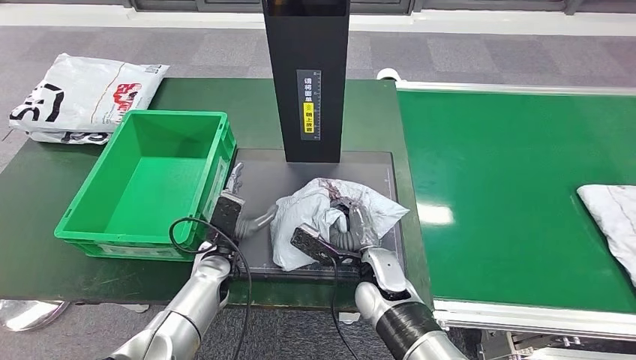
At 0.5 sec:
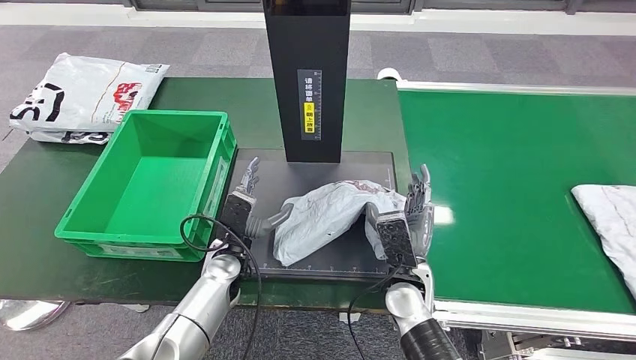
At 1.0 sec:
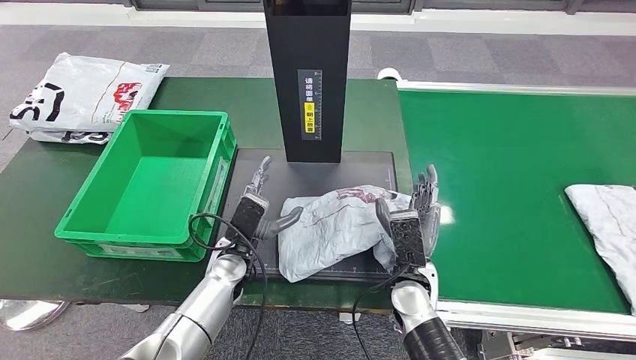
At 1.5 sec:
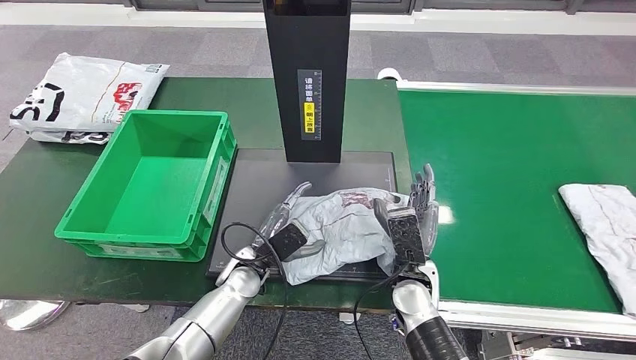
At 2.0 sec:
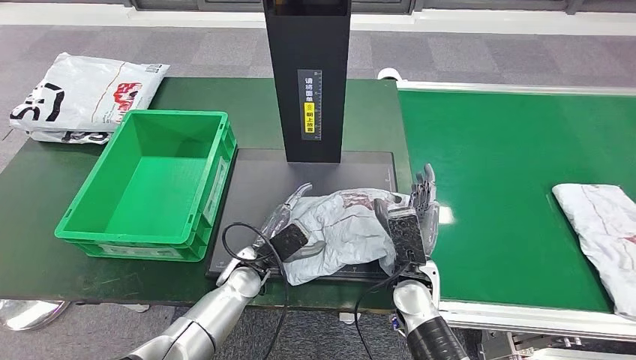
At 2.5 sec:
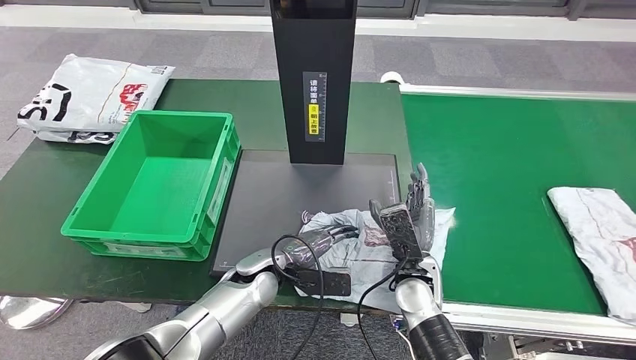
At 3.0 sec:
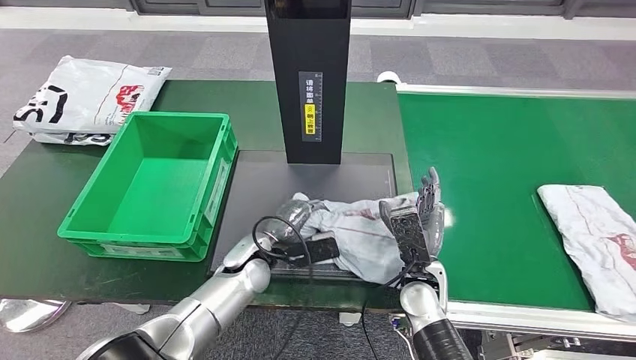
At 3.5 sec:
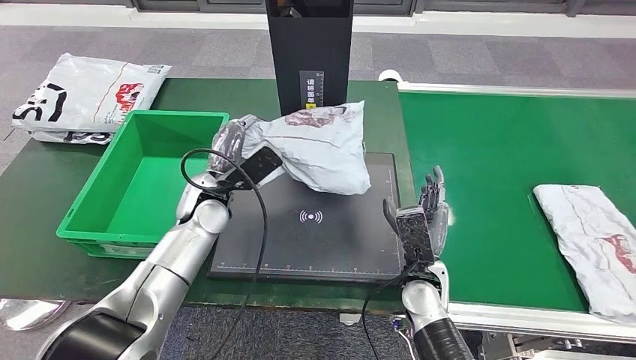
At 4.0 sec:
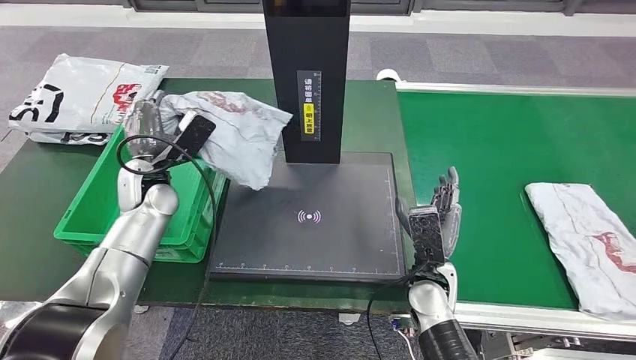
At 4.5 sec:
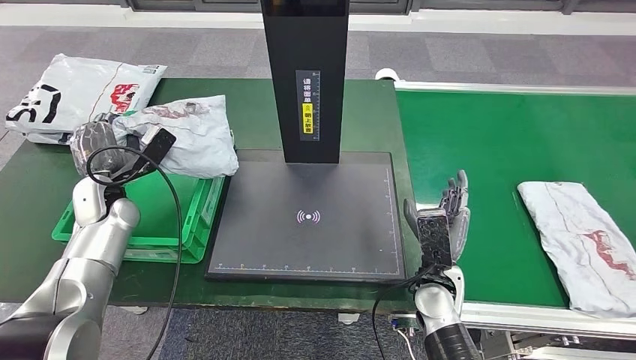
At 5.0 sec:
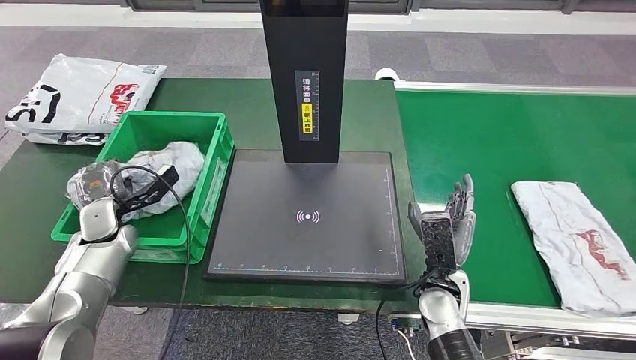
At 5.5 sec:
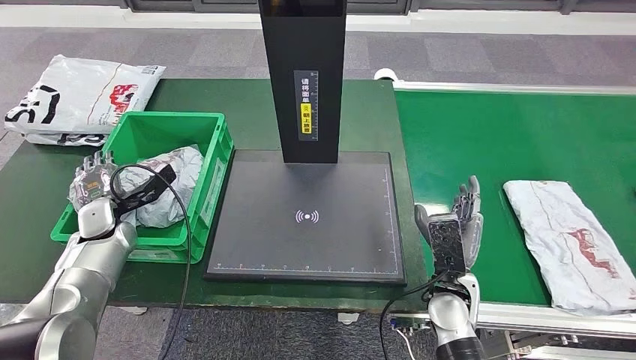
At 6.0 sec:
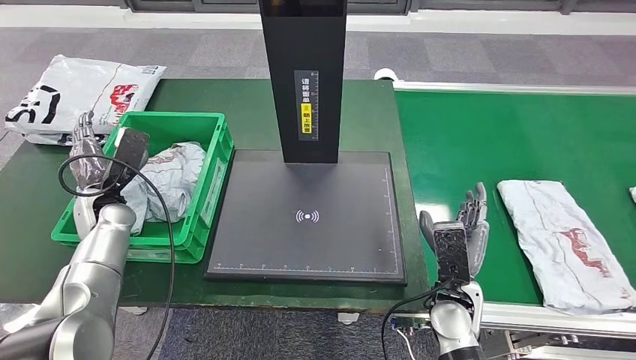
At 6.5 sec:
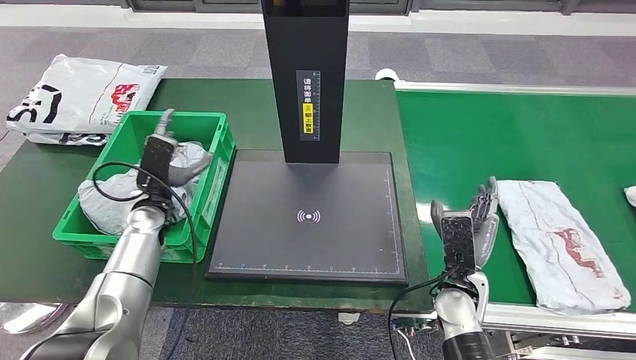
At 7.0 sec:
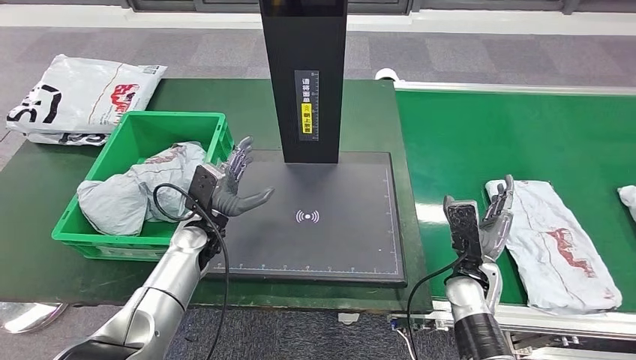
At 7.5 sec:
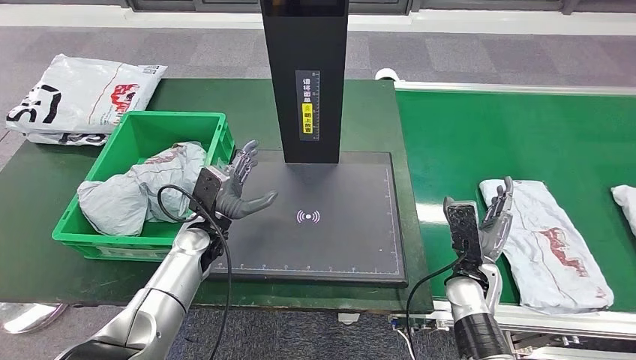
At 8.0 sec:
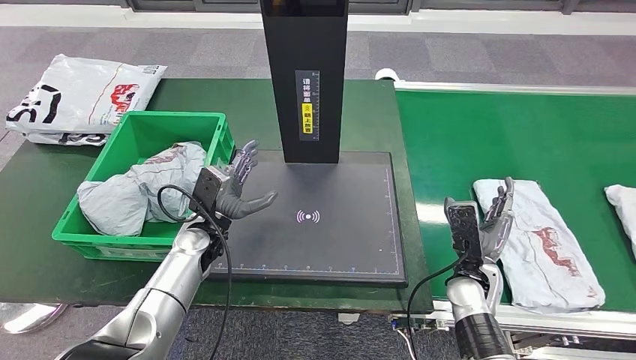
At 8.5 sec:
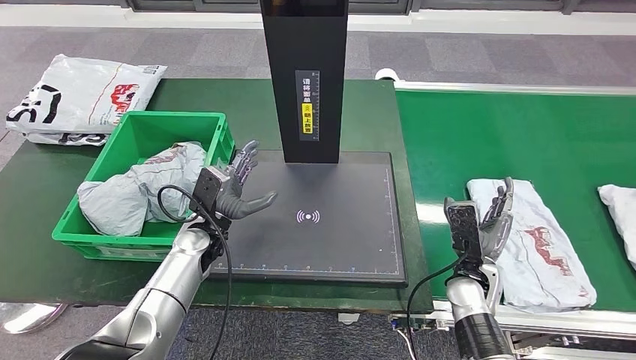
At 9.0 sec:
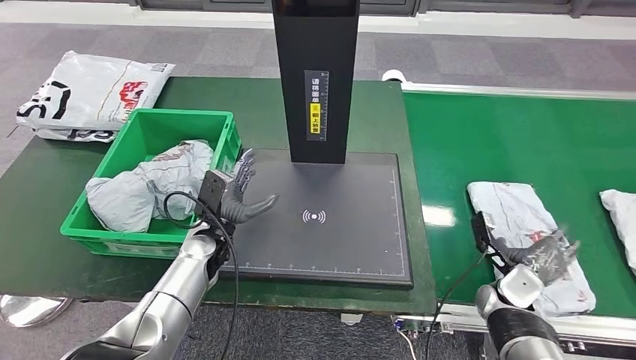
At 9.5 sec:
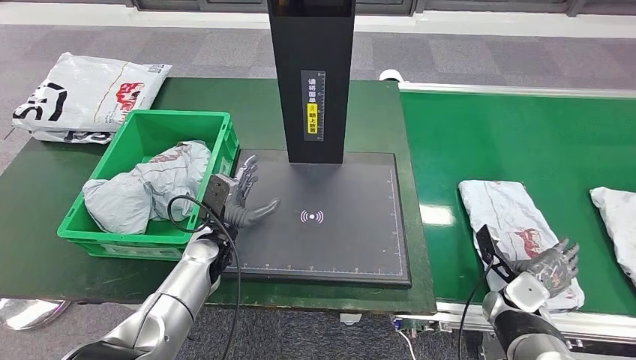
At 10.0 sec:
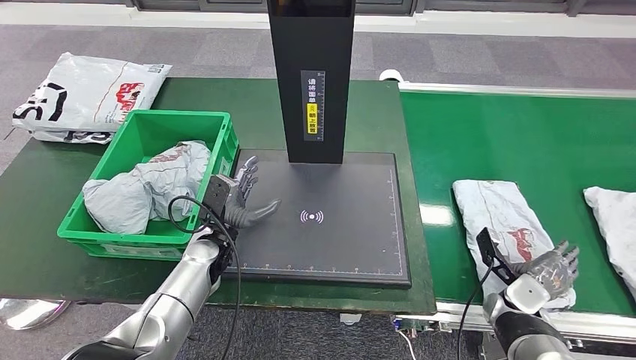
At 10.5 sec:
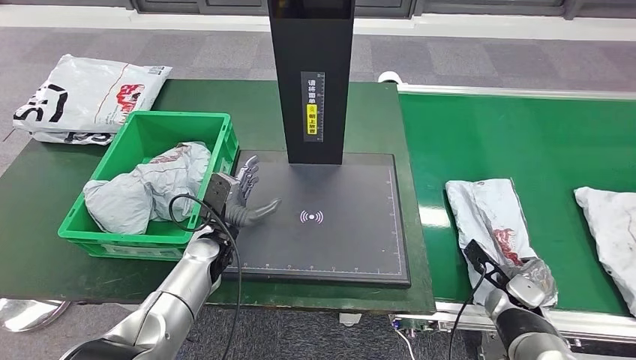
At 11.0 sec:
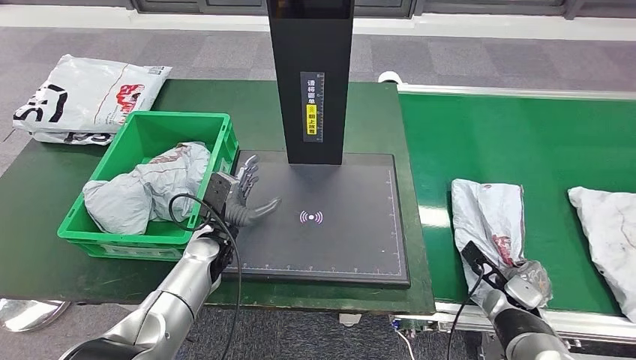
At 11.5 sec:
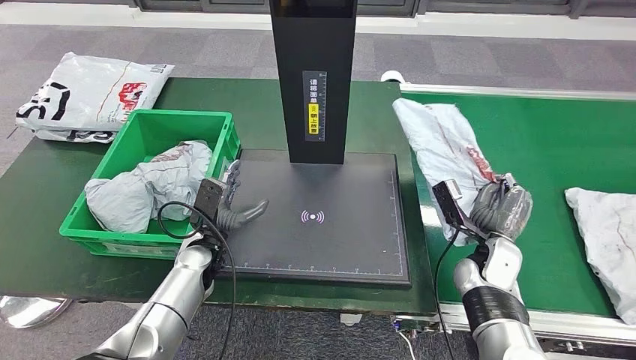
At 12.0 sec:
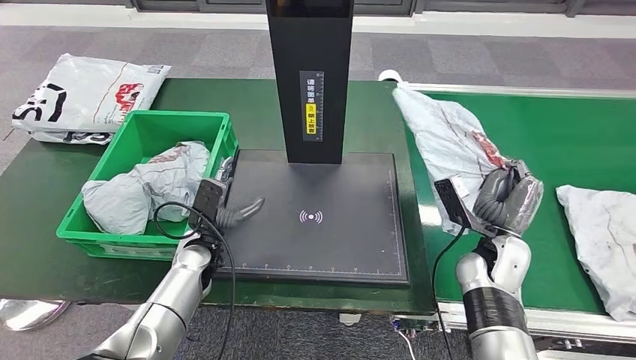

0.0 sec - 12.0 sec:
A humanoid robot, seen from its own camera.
Step, 1.0 sec - 3.5 sec: Pick up the parcel from the inbound machine.
Step, 4.0 sec - 7.5 sec: Put the parcel inside the courier box.
Step, 8.0 sec - 11.5 sec: Pick up the parcel from the conveyor belt.
0.0 sec - 2.0 sec: Both hands travel together to the right, some 5 cm.

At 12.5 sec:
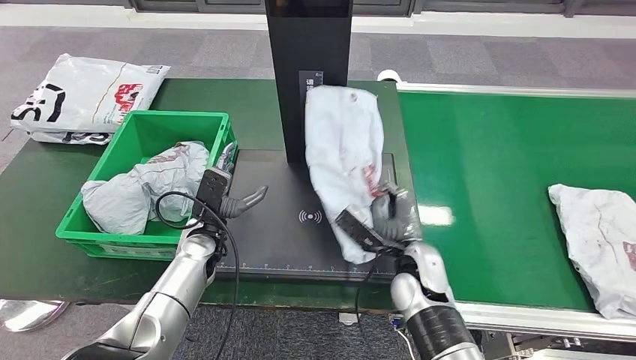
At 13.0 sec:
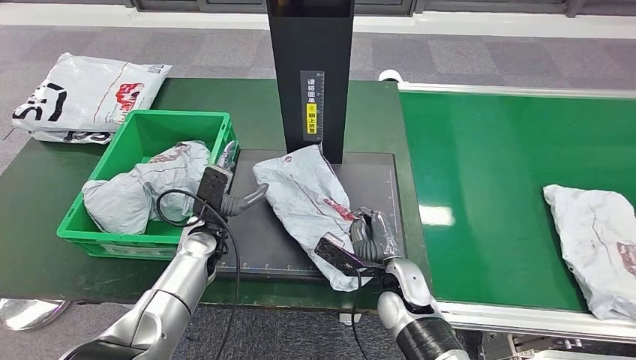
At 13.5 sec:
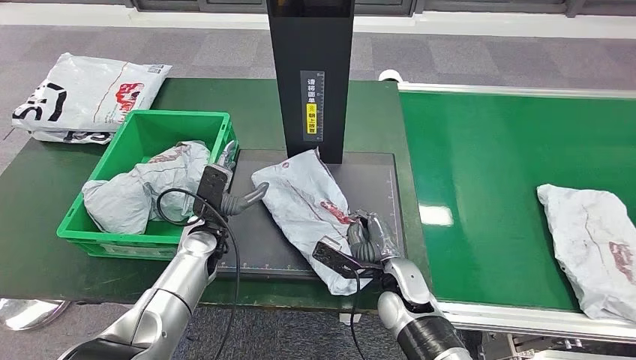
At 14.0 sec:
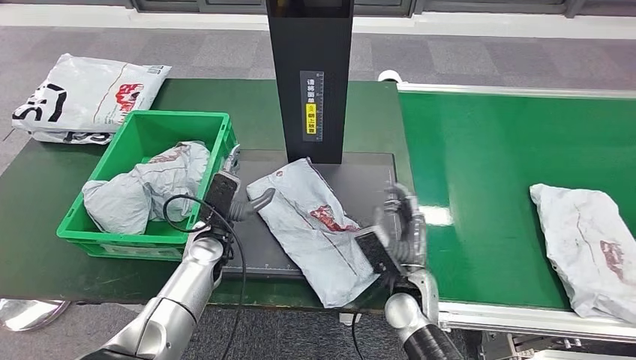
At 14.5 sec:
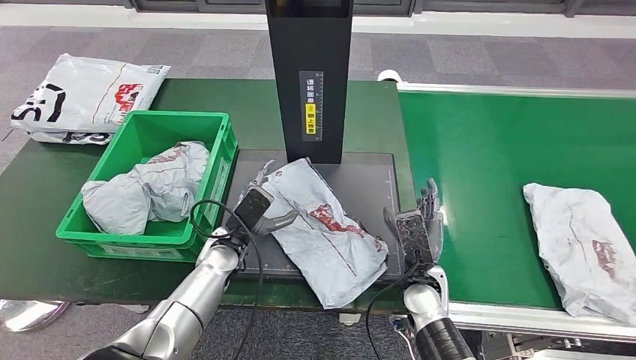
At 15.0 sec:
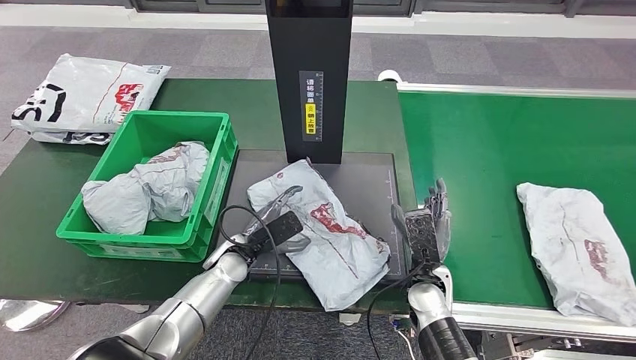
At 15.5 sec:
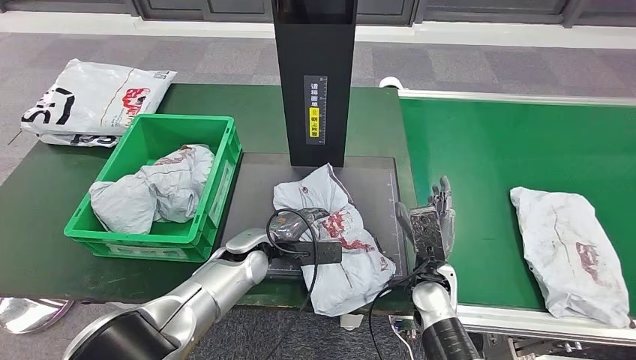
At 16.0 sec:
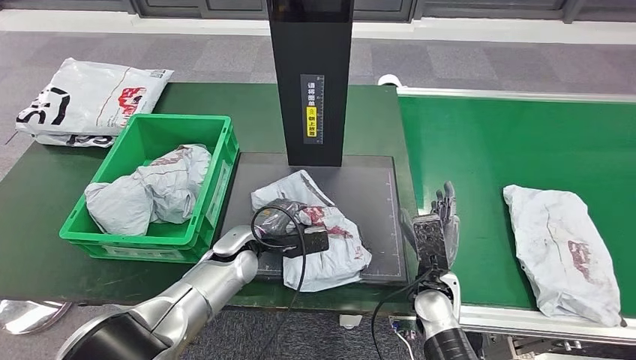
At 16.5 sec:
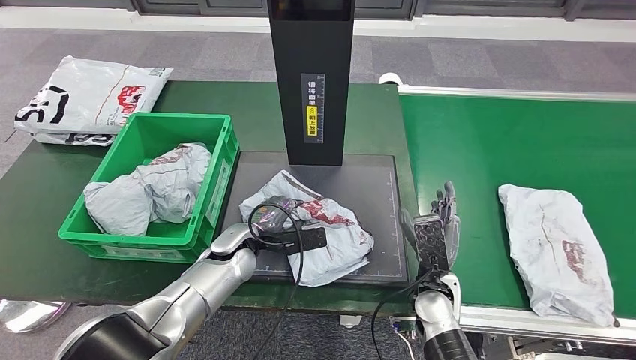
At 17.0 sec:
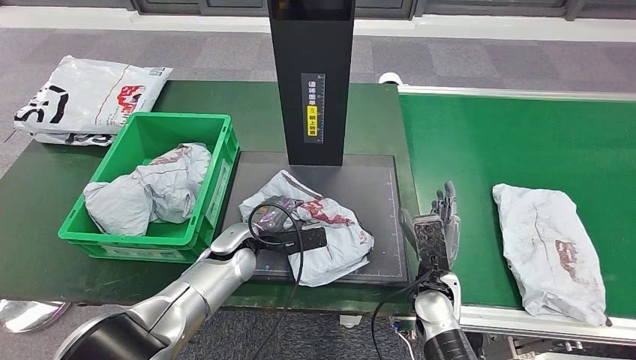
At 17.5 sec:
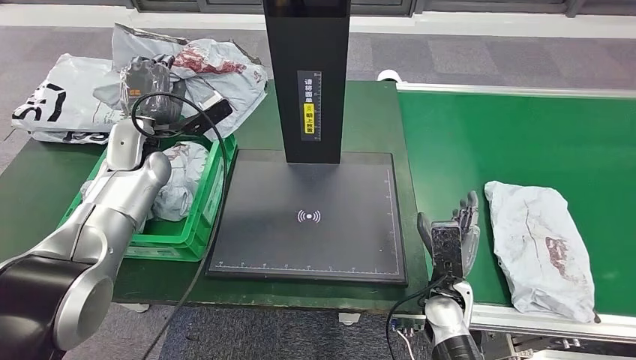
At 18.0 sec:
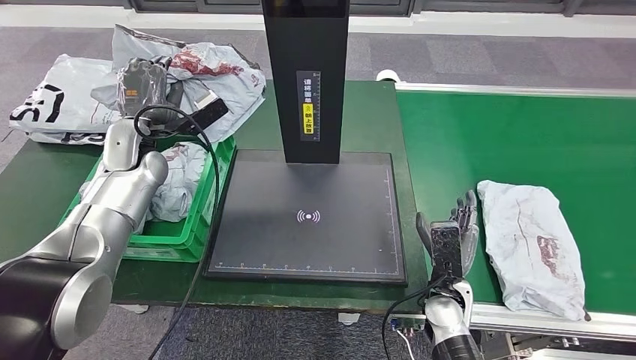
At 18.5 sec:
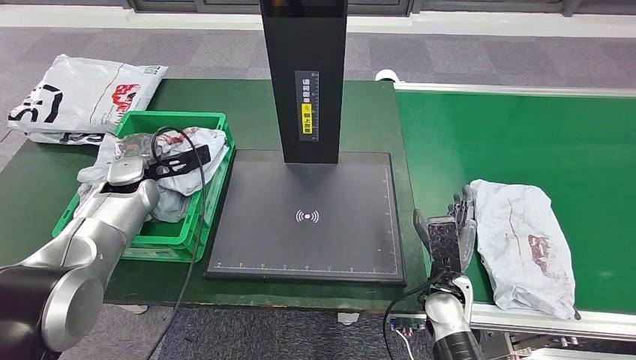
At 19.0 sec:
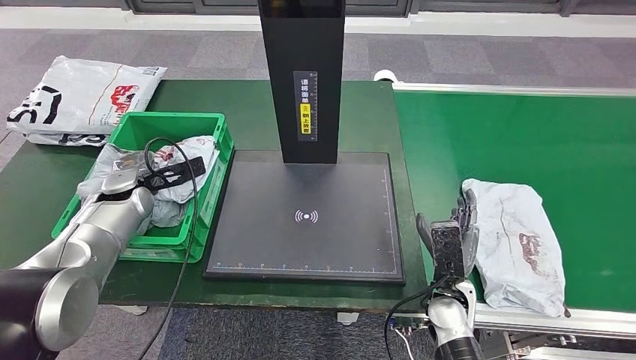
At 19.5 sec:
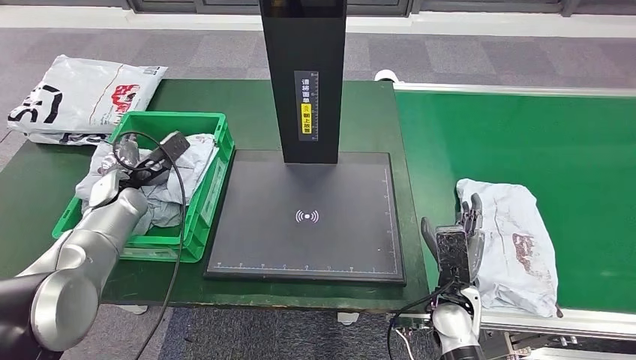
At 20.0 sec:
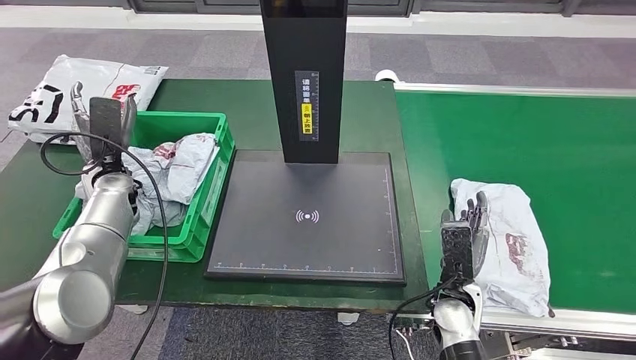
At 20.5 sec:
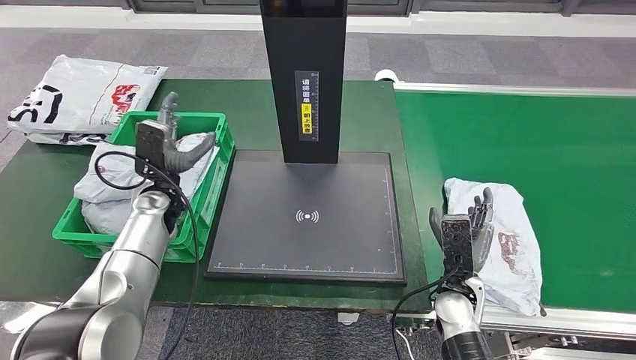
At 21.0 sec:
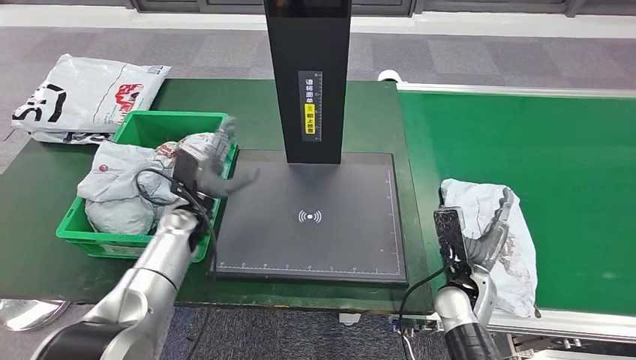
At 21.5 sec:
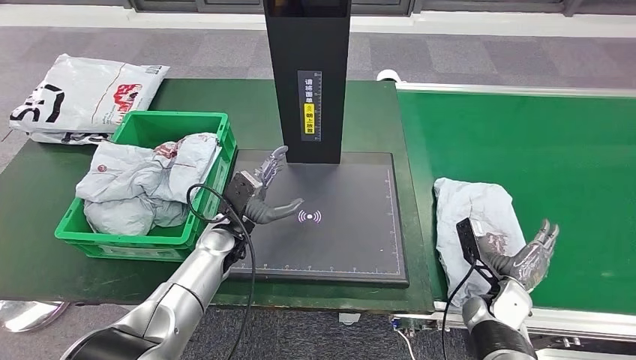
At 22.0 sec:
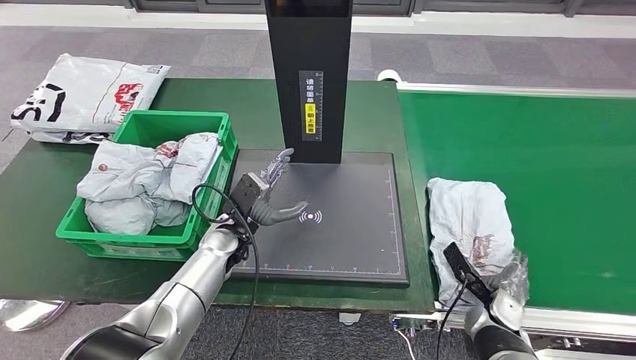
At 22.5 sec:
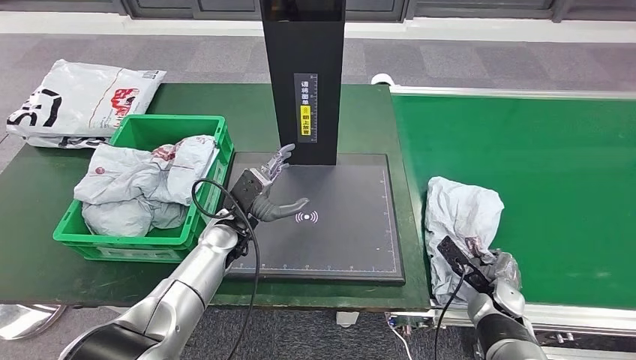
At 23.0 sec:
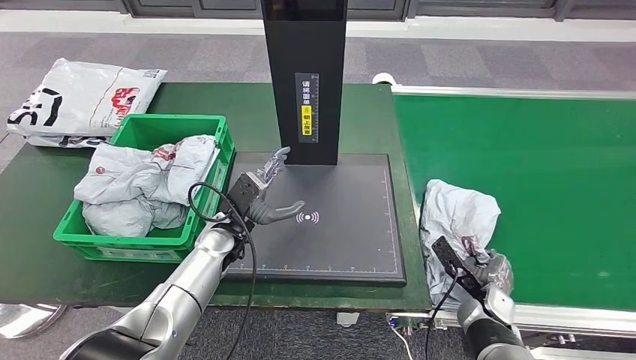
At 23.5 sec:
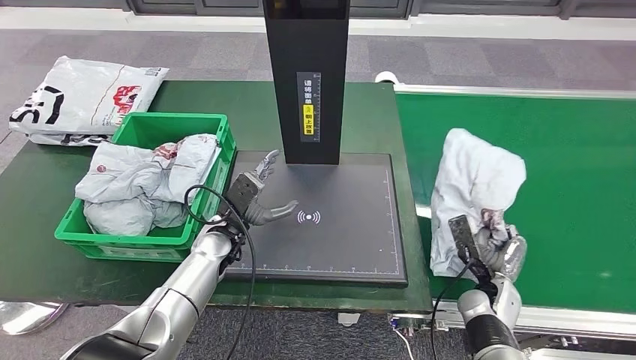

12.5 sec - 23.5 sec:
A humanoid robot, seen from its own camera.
Step, 12.5 sec - 14.0 sec: Place the parcel onto the inbound machine.
Step, 14.5 sec - 17.5 sec: Pick up the parcel from the inbound machine.
Step, 18.0 sec - 20.5 sec: Place the parcel into the delivery box.
